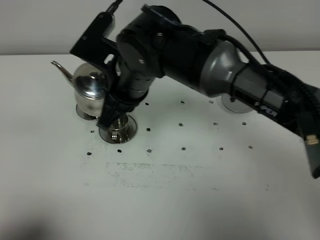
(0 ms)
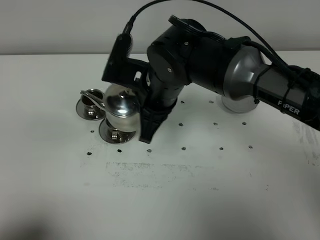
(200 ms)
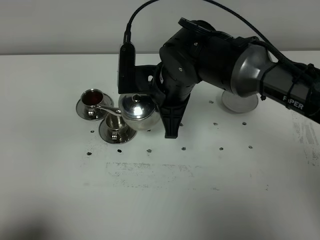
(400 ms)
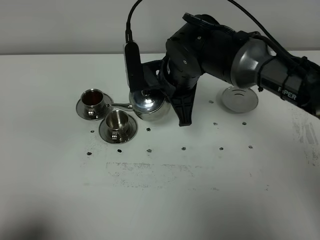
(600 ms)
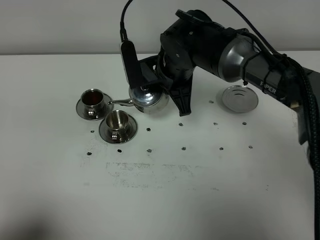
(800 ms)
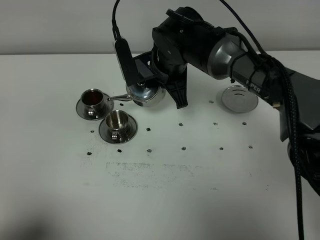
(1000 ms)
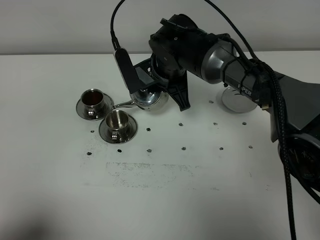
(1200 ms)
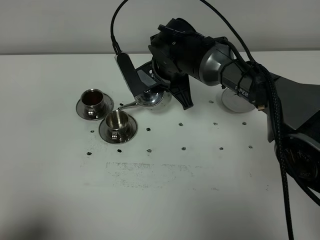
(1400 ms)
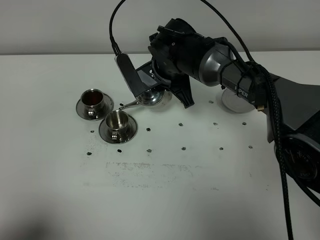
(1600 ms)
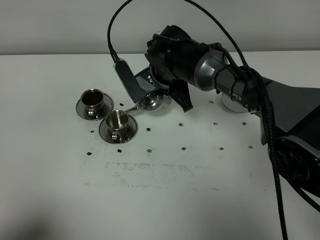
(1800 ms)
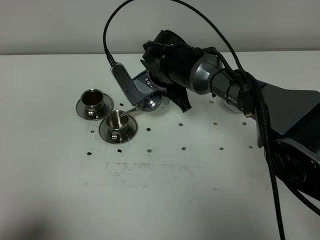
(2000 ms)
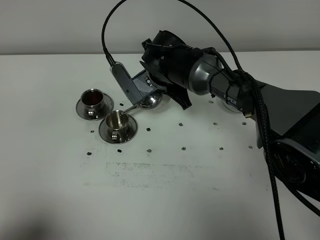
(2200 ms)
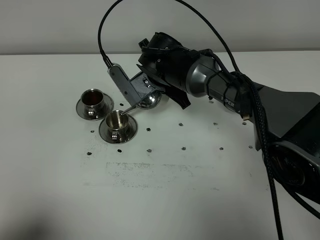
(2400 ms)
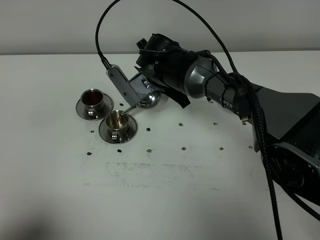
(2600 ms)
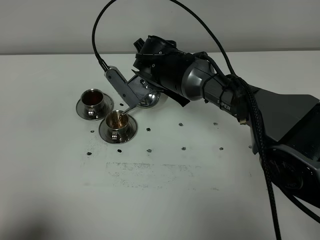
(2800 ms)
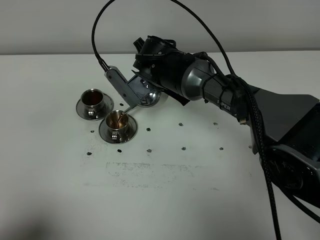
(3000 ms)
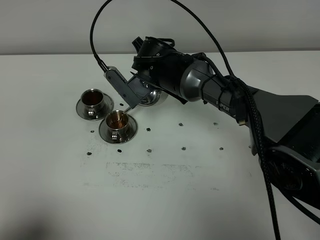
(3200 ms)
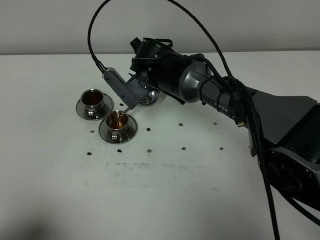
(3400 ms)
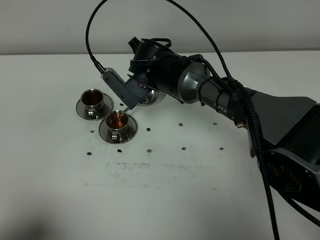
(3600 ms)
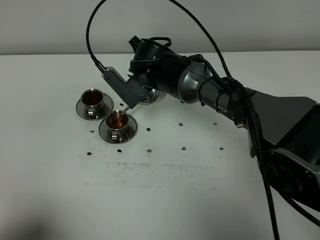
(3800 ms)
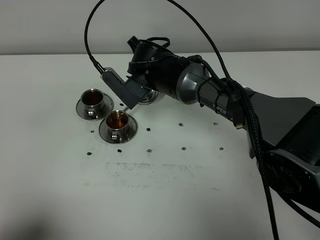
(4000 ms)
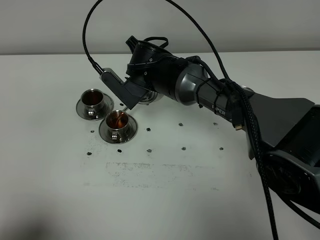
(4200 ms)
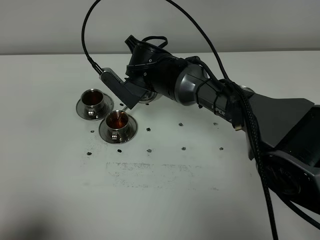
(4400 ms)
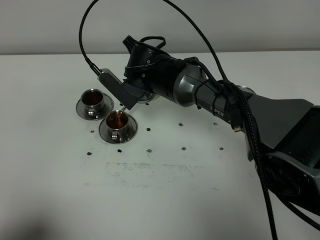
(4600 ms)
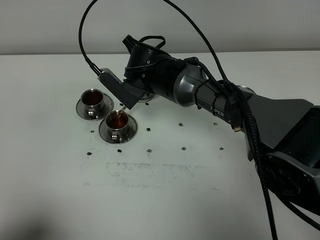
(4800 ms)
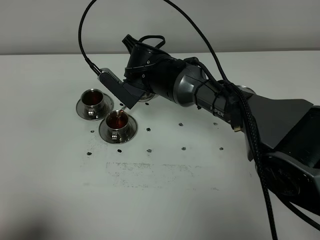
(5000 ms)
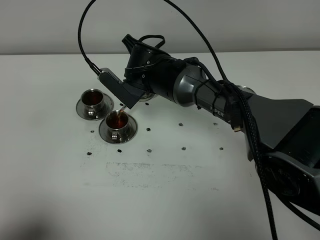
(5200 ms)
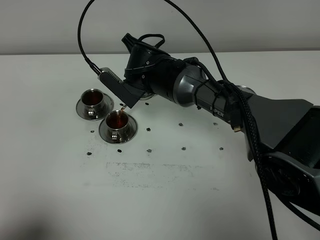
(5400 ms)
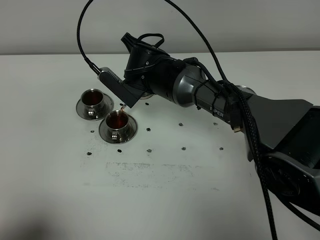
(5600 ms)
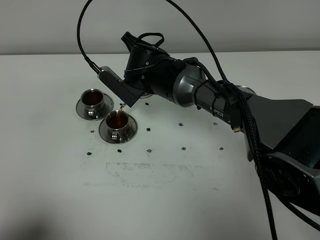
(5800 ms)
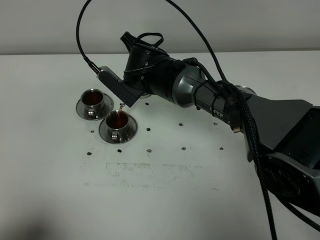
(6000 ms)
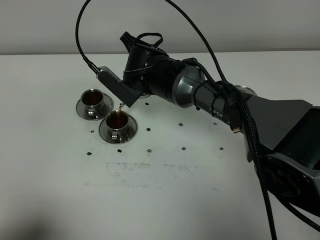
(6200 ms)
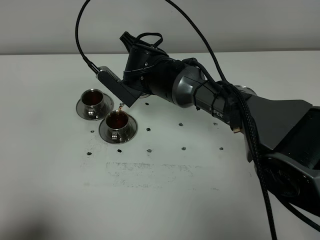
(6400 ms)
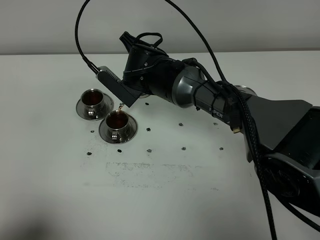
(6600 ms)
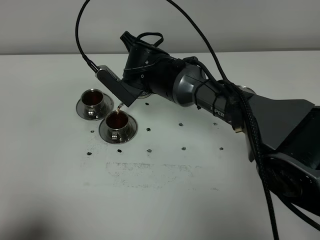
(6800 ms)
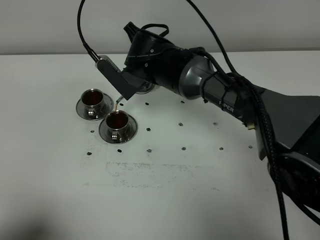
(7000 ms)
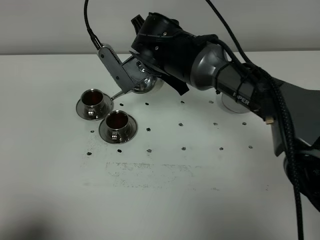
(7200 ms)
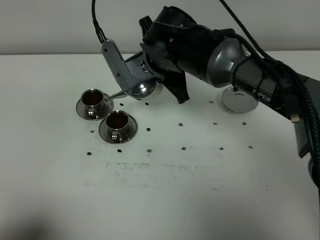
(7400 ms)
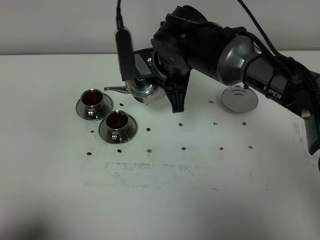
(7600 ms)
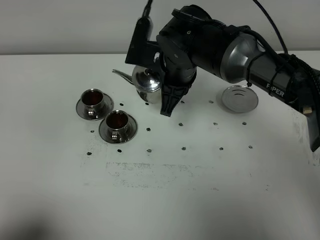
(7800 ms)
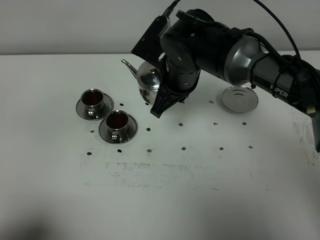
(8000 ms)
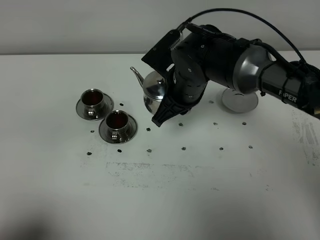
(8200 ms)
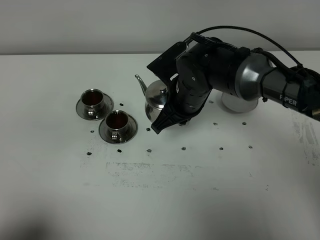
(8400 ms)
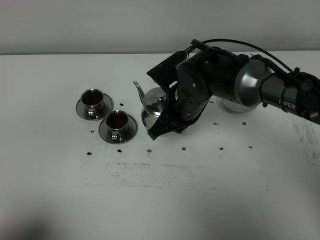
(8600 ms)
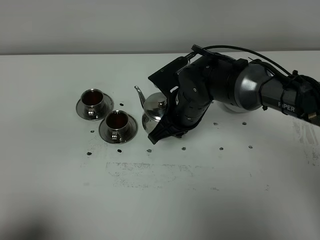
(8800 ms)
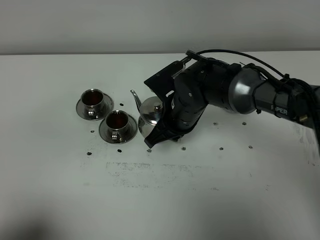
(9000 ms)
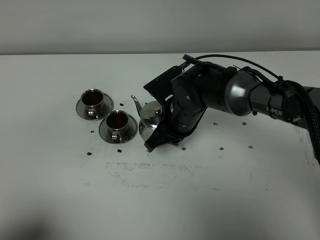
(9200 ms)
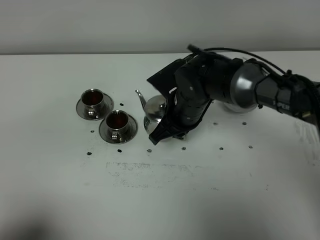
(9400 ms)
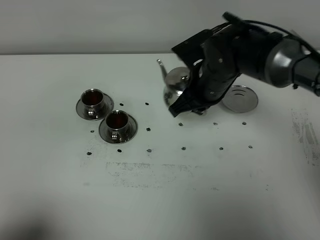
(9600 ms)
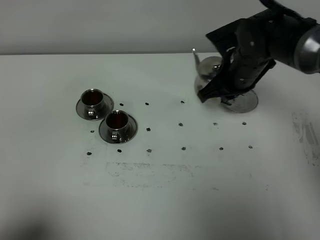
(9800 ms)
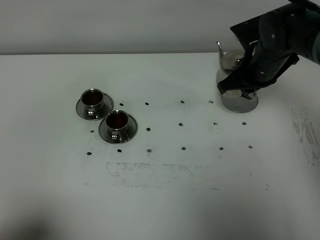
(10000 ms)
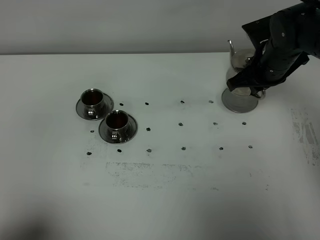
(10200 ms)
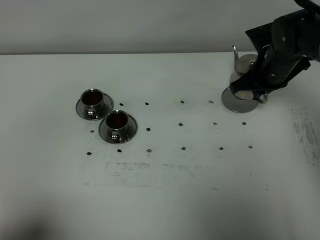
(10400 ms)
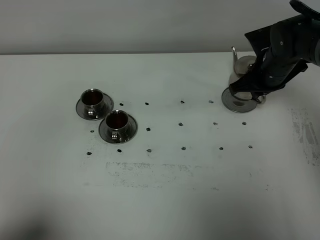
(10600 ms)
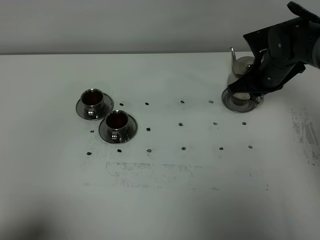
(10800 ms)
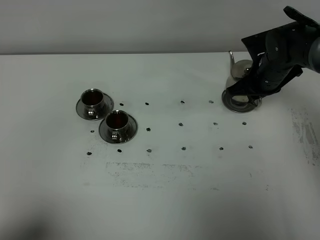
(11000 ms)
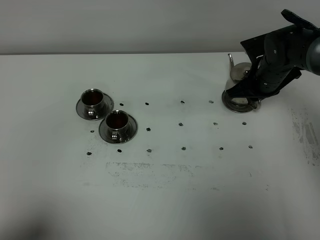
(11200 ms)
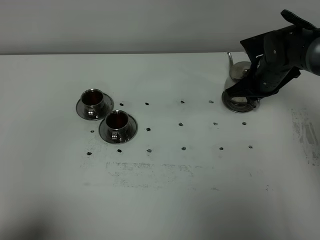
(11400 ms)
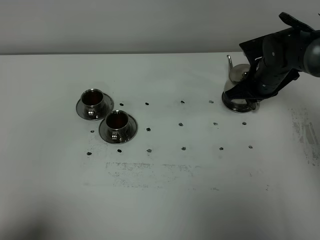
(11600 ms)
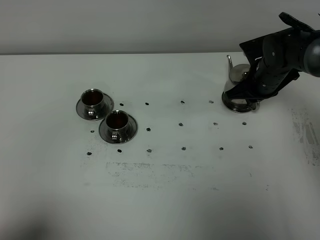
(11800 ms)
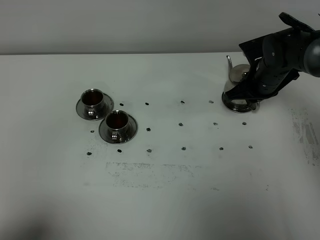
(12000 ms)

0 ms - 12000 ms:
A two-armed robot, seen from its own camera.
Task of the whole recording: grasp the stainless steel teapot and pour the tea into the two stainless steel teacups one by one, put the stainless steel teapot back in its original place.
Step, 0 ms - 7200 ms: Pour tea into the teacup with the right gripper.
0 ms - 1600 ms: The right gripper travels forward, downward and to the right by roughly 15 cm.
1600 ms - 3000 ms: The grippers stay close to where they were, moving slightly.
3000 ms - 4400 ms: There are only small adjustments of the grippers.
4400 ms - 6000 ms: Both grippers stay put.
6000 ms - 7600 ms: The right gripper changes place by about 5 cm.
7600 ms - 9000 ms: The right gripper travels downward by some 10 cm.
9000 ms - 10400 ms: The right gripper goes roughly 20 cm to the right.
10400 ms - 12000 ms: The grippers stay close to where they were, moving slightly.

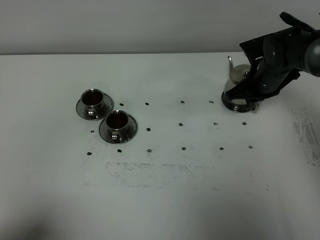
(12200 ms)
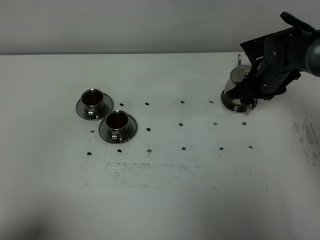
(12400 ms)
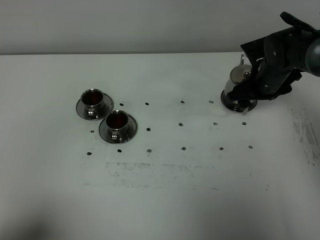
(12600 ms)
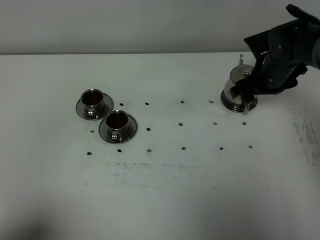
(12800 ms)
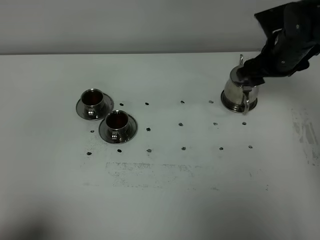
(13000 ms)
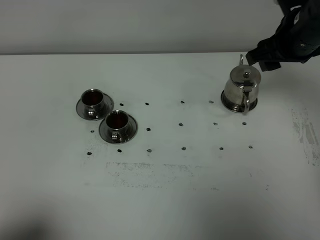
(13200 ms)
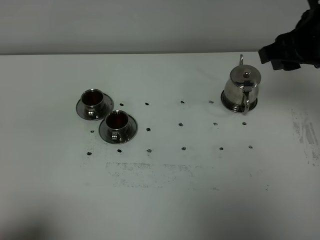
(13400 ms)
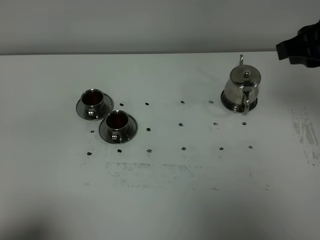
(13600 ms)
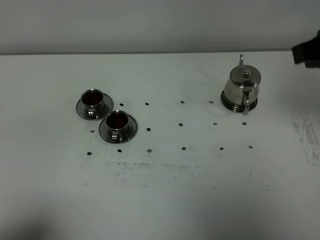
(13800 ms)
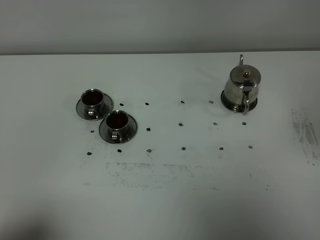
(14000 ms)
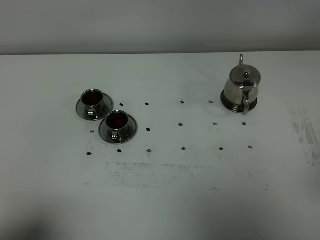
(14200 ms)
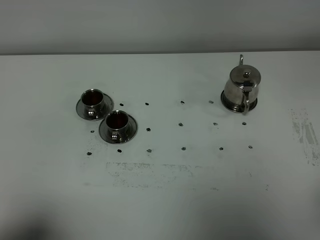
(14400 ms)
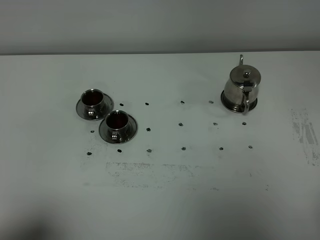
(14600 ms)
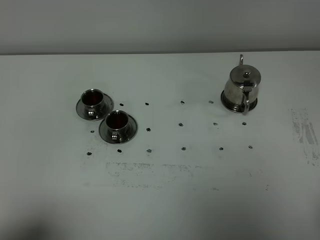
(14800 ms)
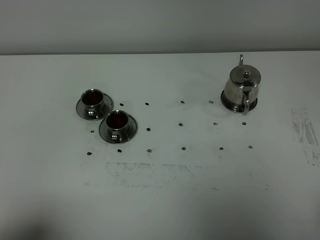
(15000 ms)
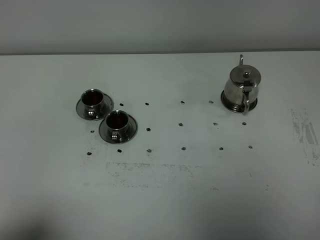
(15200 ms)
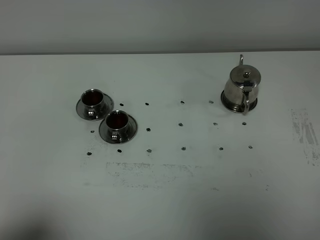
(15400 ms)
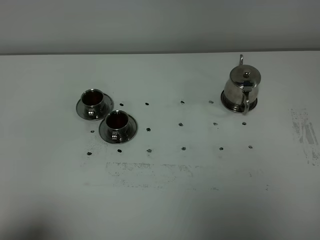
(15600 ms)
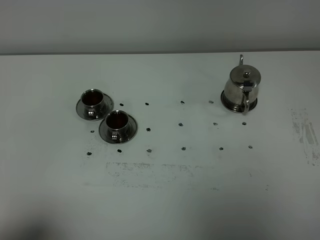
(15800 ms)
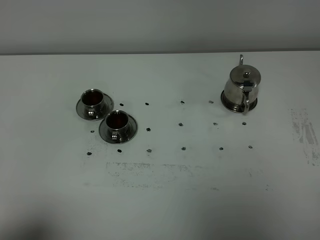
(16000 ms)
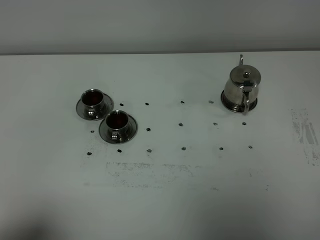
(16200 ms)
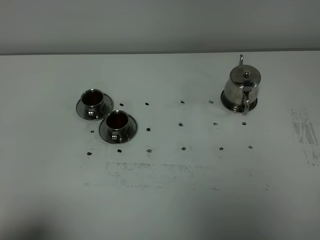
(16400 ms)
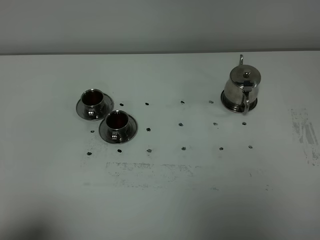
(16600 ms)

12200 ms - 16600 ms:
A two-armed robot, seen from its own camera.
Task of the whole recording: grasp the stainless steel teapot and pour the tea into the two stainless steel teacups one by one, put the stainless steel teapot back in its original place.
12200 ms - 13600 ms: The right gripper is displaced upward and backward by approximately 30 cm, and opens and closes again.
13600 ms - 15200 ms: The right gripper heads backward, covering about 30 cm, and closes up.
15200 ms - 16600 ms: The two grippers keep their place.
